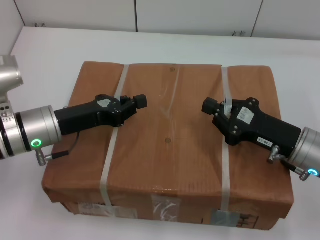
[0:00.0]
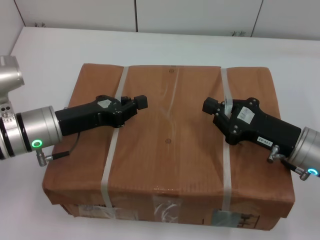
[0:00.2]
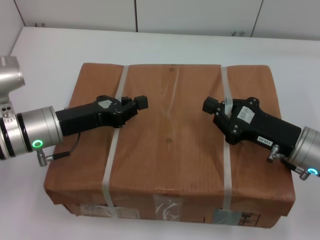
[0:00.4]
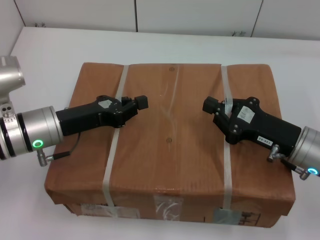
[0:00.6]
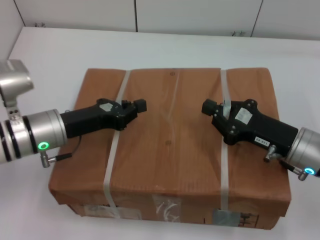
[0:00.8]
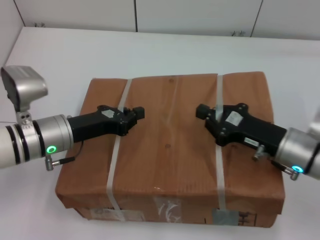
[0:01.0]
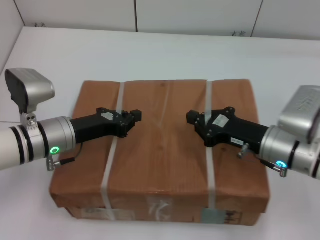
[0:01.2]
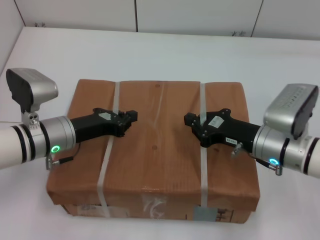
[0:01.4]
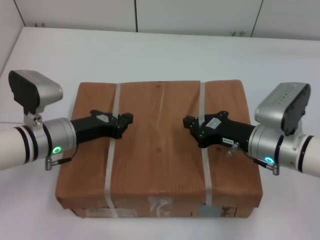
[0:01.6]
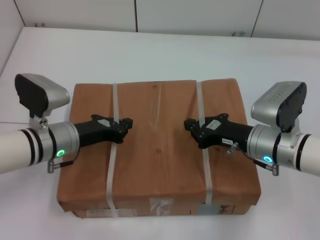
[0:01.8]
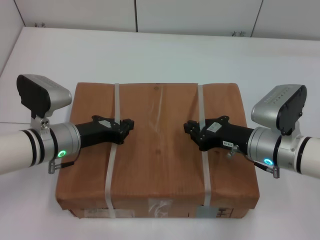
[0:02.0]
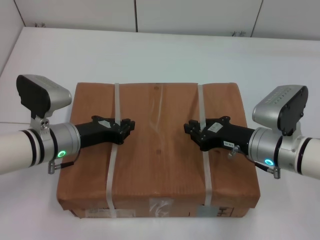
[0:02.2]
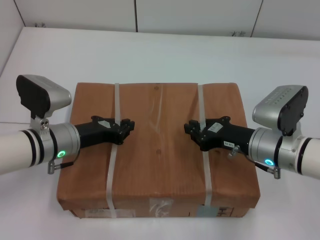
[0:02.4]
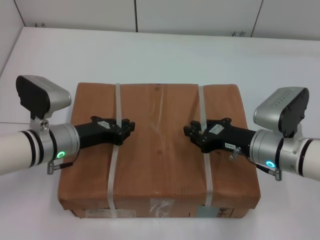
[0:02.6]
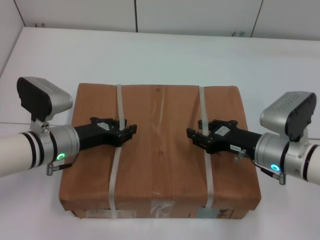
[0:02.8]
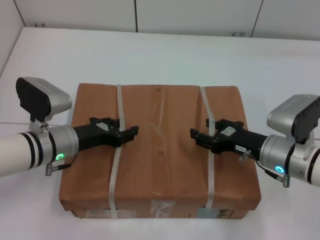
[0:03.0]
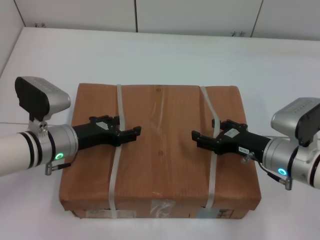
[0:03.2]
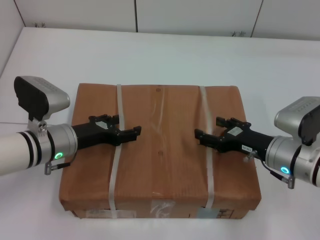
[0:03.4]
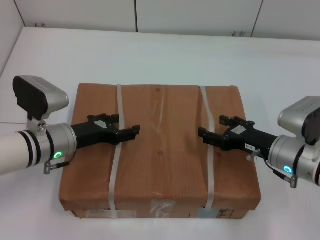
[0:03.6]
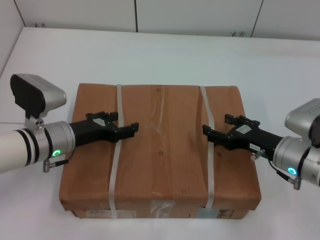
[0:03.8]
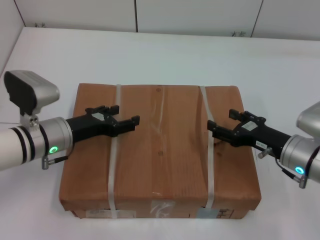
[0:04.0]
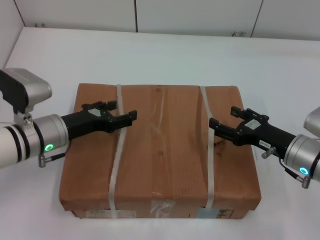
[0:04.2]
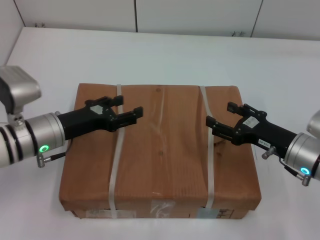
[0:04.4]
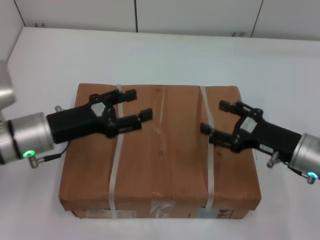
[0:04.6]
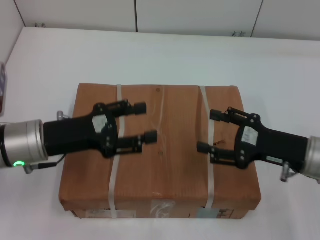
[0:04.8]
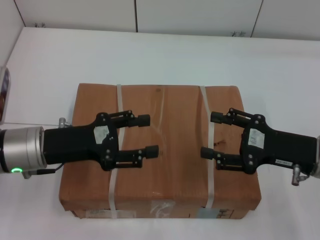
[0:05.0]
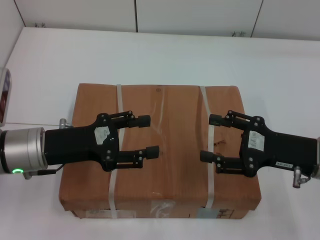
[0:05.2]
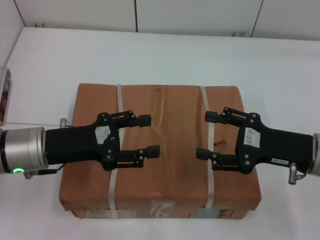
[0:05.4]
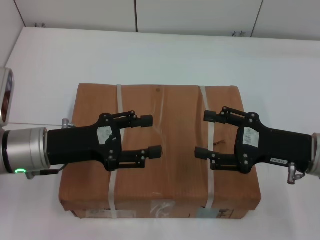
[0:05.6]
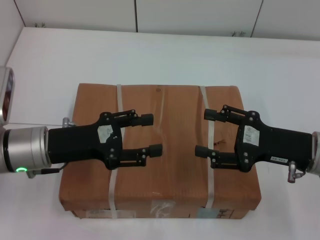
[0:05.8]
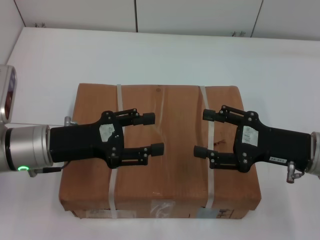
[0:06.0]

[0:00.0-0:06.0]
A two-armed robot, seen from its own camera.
Task of the whole recording: place the box on the table with both arms.
Step, 0:00.0 to 0:02.0: Place the box on the table with left gripper.
Step, 0:00.0 to 0:02.0: Place the box on the table with right gripper.
Step, 0:02.2 to 0:03.4: Loosen the box on the table with left gripper.
Step, 0:02.2 to 0:03.4: Loosen the box on the table with right gripper.
0:00.0 to 0:01.6: The right gripper moves roughly 5 cm.
0:01.6 to 0:03.0: The left gripper opens; the right gripper opens its fingers.
0:03.0 to 0:04.4: The left gripper opens its fingers, while the right gripper opens up.
0:04.4 to 0:06.0: The left gripper ends up some 5 cm from where it was; the right gripper is displaced upward by some 5 cm.

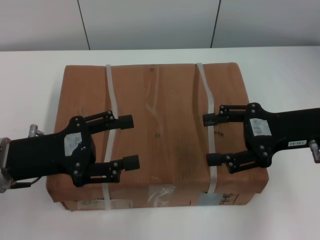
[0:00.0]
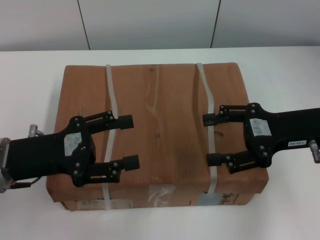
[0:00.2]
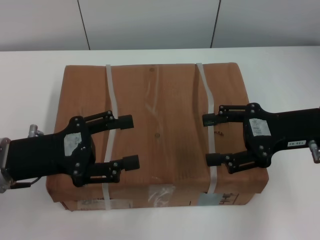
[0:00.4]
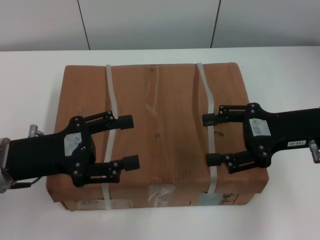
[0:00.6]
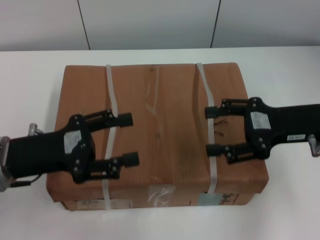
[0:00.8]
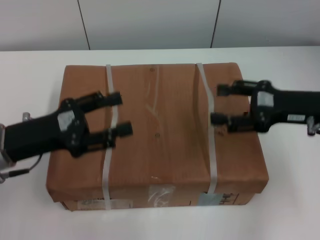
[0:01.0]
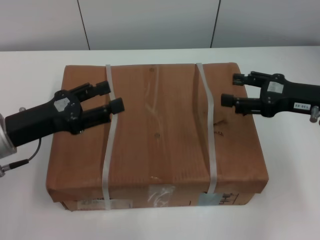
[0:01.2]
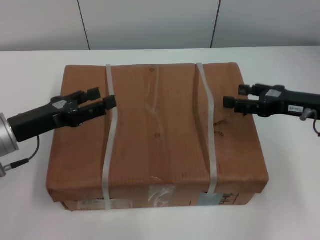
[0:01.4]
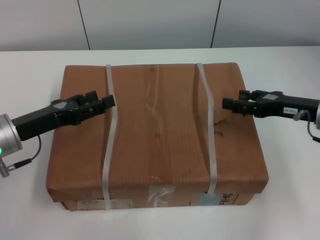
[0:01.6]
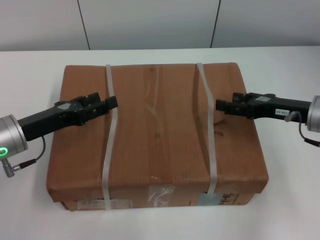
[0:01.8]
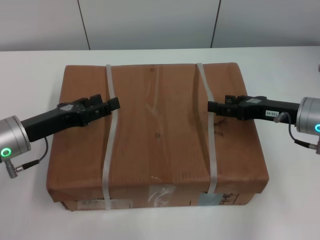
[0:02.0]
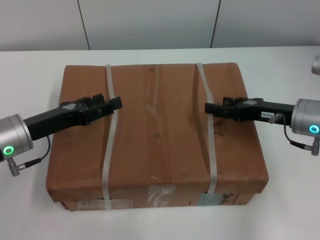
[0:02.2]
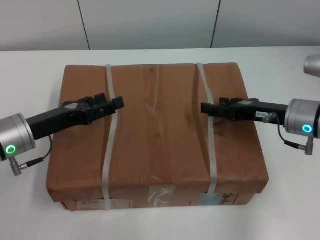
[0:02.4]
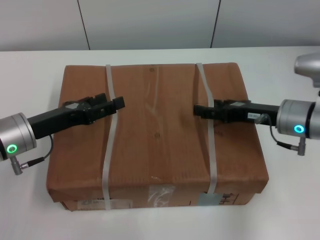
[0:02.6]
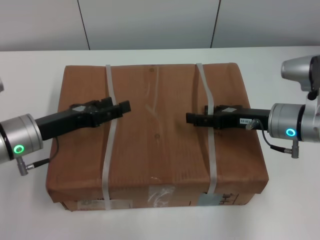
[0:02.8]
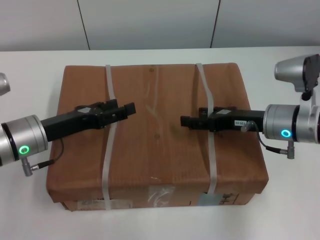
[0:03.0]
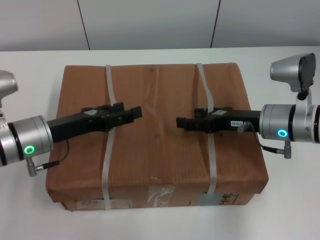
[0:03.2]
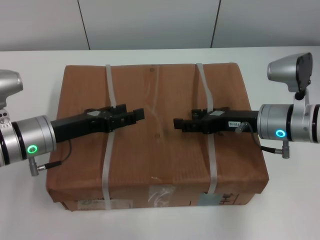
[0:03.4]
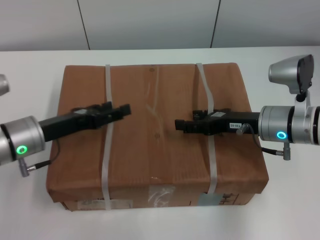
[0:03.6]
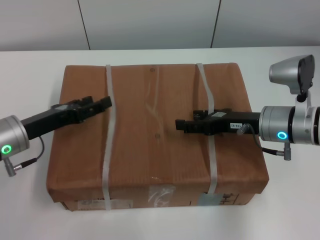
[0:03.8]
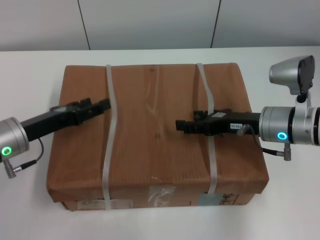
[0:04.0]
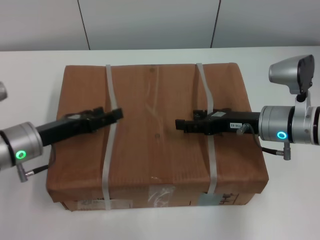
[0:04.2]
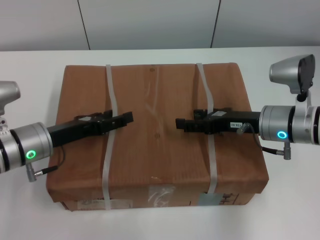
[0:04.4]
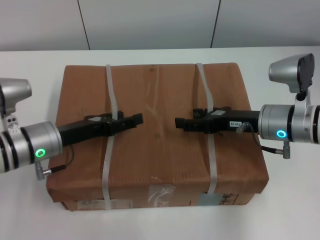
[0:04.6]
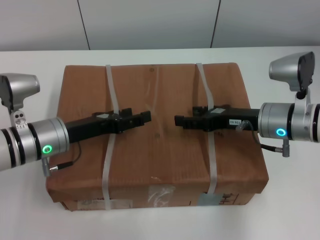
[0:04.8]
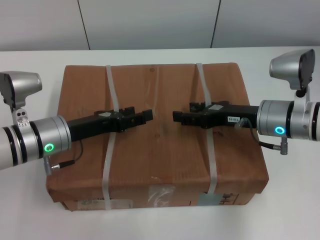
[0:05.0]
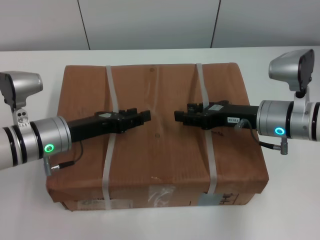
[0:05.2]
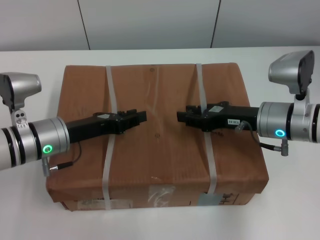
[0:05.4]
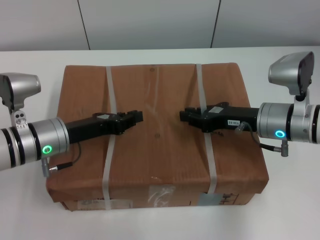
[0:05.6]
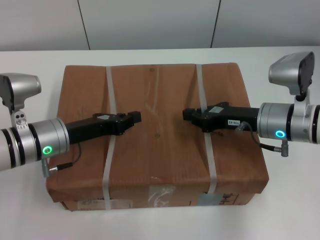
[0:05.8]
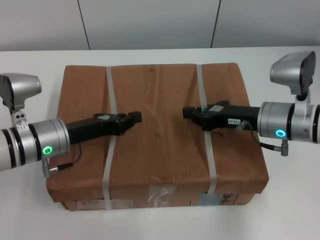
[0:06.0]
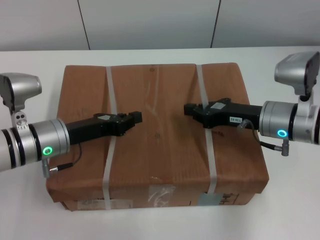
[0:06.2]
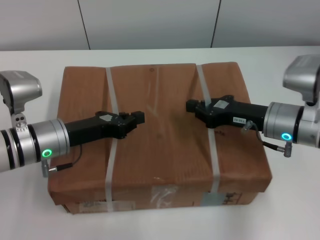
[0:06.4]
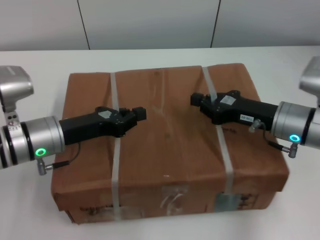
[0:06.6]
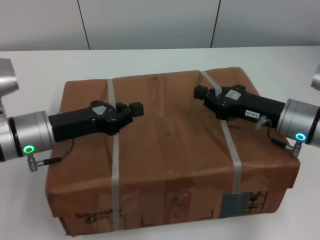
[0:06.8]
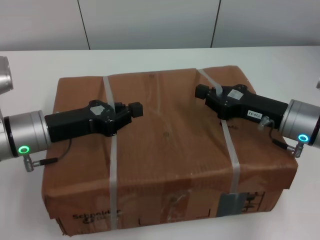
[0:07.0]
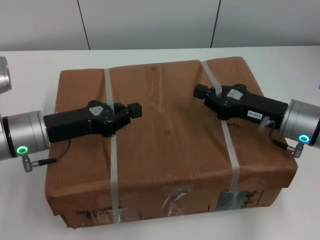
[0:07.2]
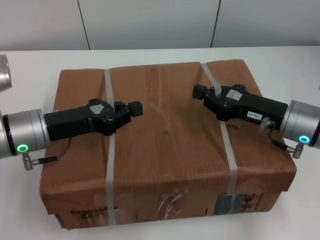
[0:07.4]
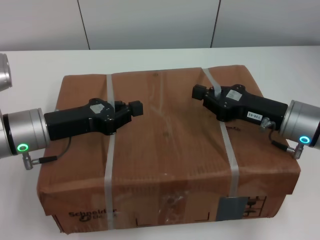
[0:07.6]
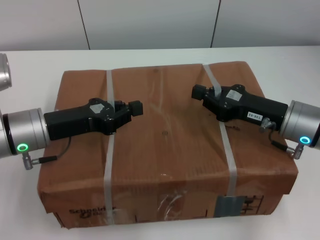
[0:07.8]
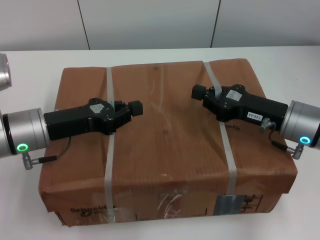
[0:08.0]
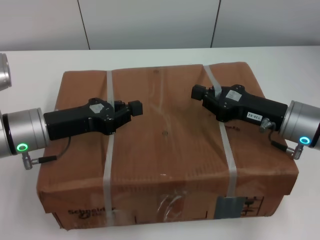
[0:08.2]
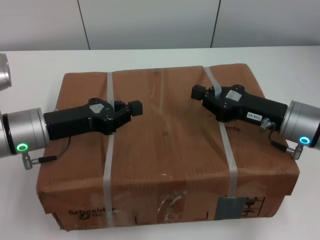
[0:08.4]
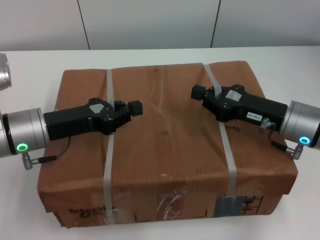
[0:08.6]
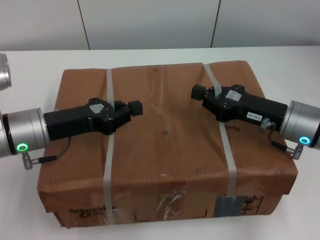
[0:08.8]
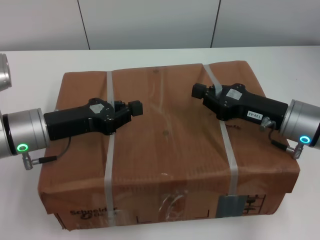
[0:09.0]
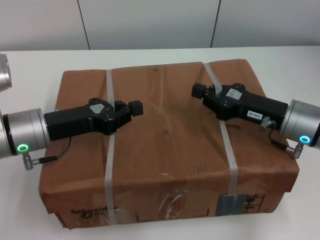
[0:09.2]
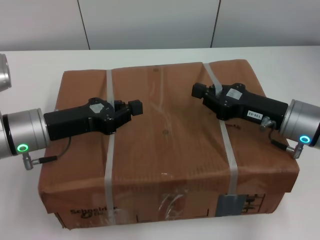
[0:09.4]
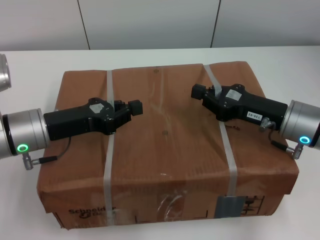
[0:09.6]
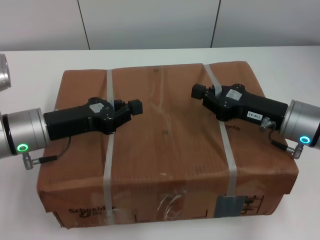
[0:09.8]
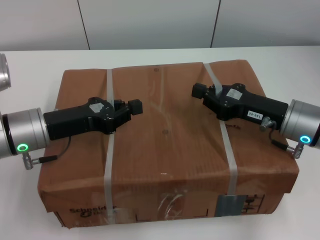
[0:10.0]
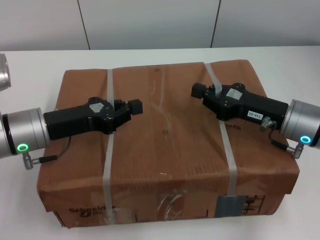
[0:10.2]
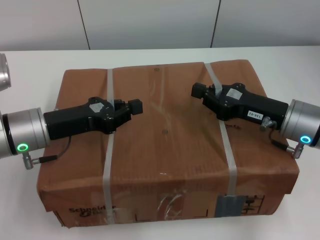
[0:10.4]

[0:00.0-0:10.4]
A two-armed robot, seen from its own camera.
Task of the whole recording: pick up the box from the table with both arms.
Step, 0:00.8 to 0:06.0: Grasp the bandage with left gripper.
Step, 0:00.8 to 0:06.0: Grasp the bandage with right gripper.
Step, 0:06.2 to 0:07.4: Lift the box with left gripper.
Step, 0:06.2 to 0:07.4: Lift the box with right gripper.
0:00.0 to 0:01.4: The right gripper changes place by about 5 cm.
0:01.4 to 0:03.0: The right gripper shifts roughly 5 cm to the left.
0:03.0 to 0:04.4: The grippers move only a little.
0:04.4 to 0:06.0: The right gripper closes, while the left gripper closes its fingers.
0:07.4 to 0:10.4: The two grippers keep their place.
